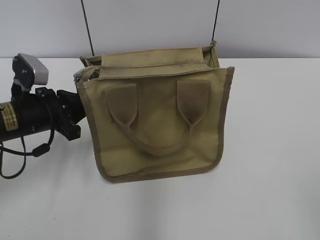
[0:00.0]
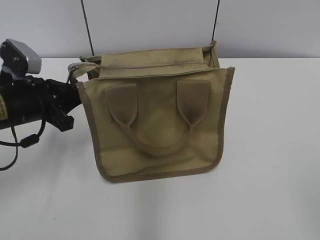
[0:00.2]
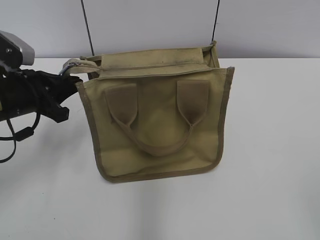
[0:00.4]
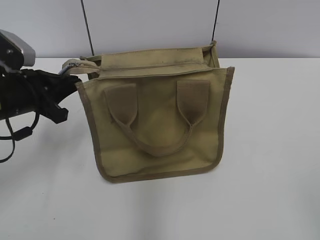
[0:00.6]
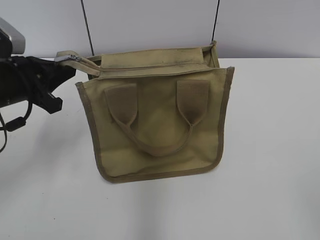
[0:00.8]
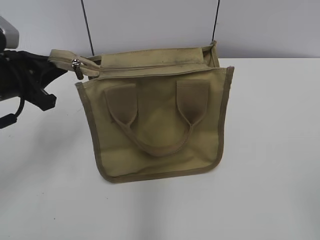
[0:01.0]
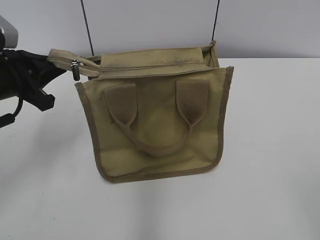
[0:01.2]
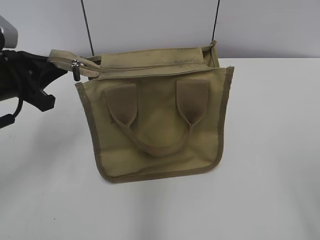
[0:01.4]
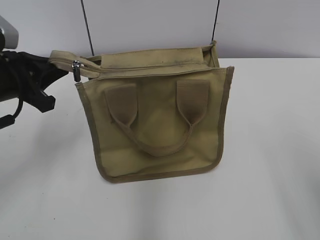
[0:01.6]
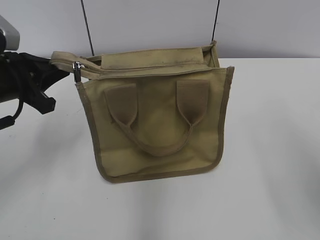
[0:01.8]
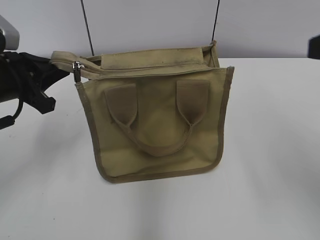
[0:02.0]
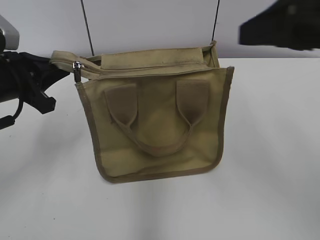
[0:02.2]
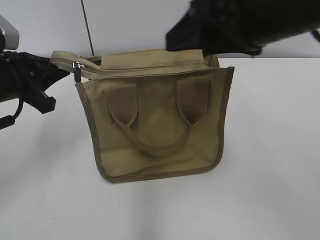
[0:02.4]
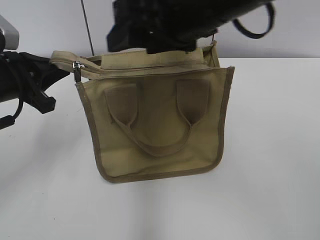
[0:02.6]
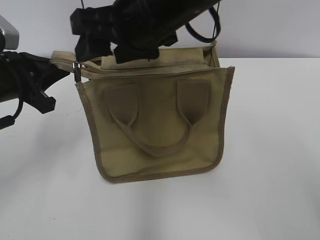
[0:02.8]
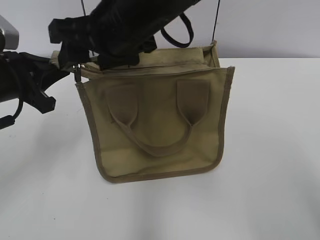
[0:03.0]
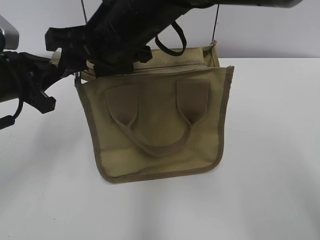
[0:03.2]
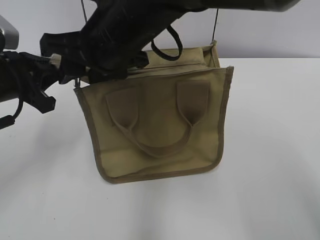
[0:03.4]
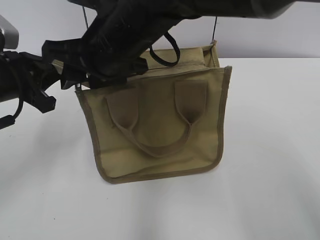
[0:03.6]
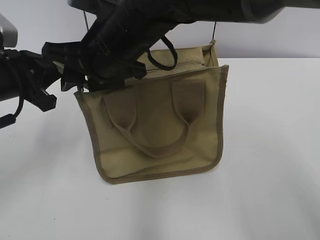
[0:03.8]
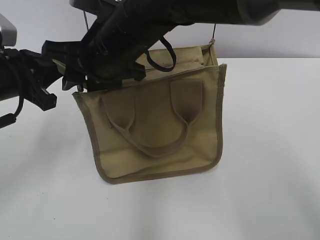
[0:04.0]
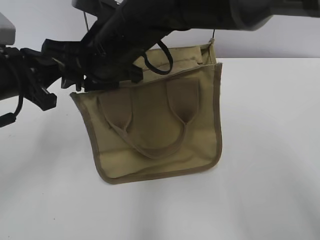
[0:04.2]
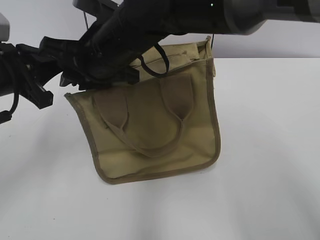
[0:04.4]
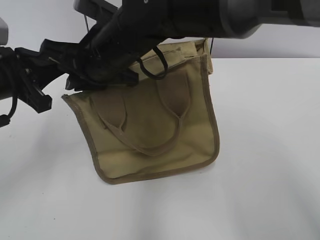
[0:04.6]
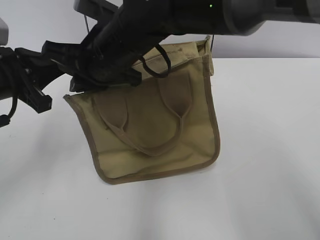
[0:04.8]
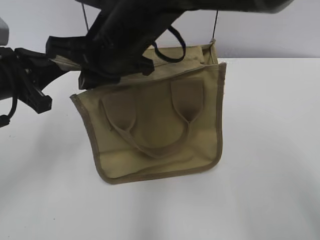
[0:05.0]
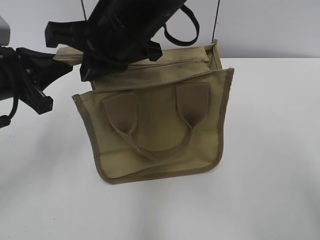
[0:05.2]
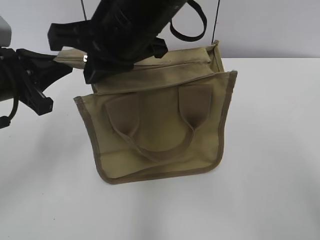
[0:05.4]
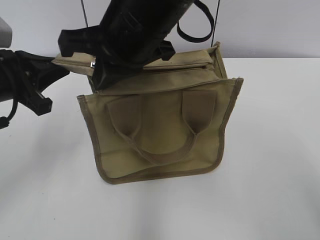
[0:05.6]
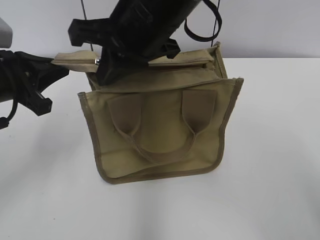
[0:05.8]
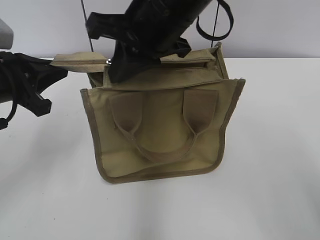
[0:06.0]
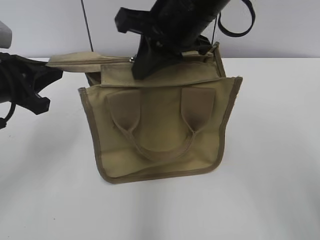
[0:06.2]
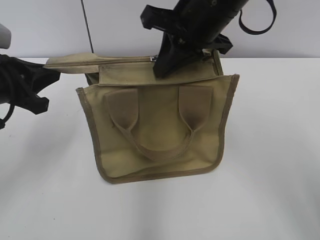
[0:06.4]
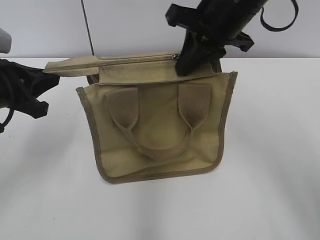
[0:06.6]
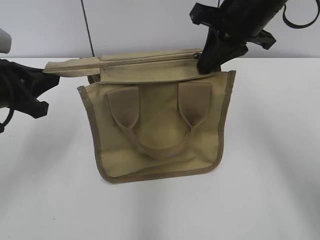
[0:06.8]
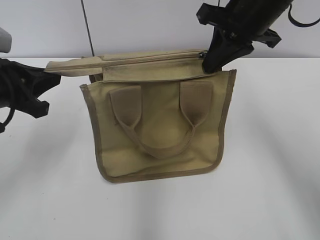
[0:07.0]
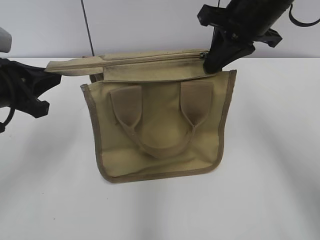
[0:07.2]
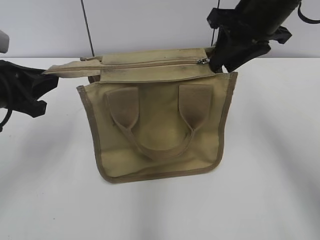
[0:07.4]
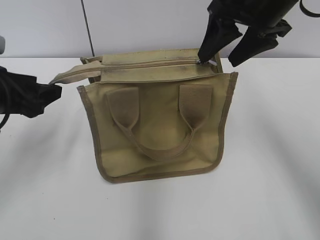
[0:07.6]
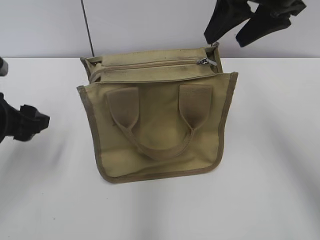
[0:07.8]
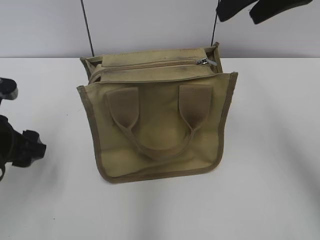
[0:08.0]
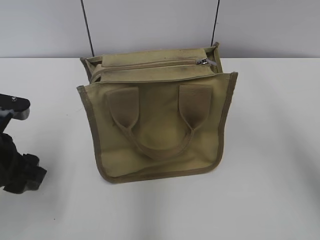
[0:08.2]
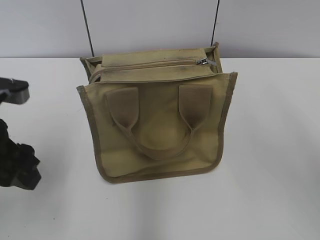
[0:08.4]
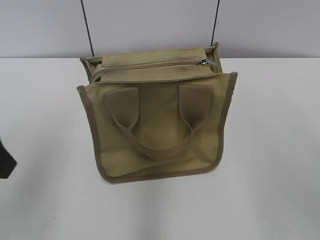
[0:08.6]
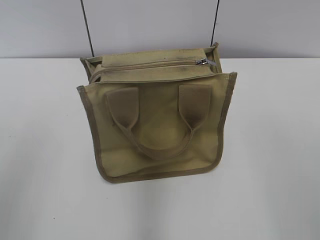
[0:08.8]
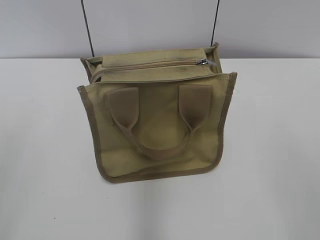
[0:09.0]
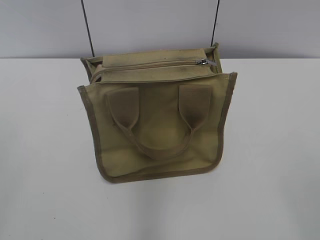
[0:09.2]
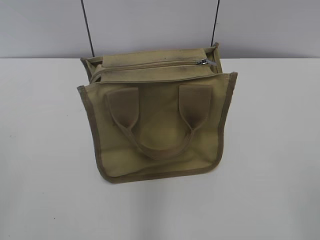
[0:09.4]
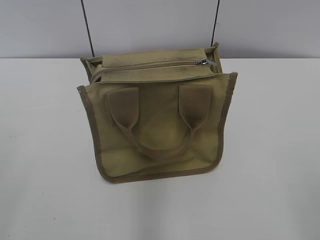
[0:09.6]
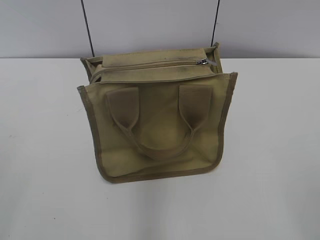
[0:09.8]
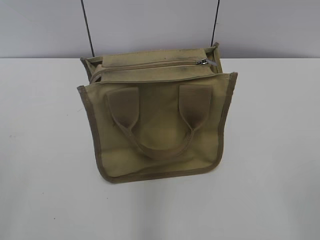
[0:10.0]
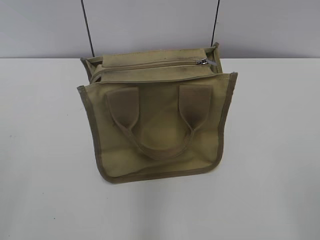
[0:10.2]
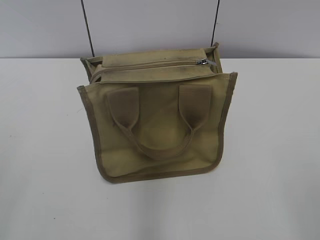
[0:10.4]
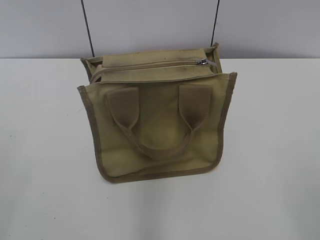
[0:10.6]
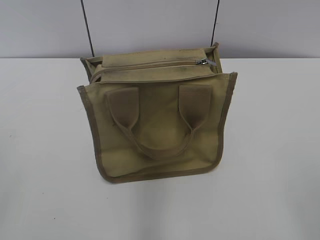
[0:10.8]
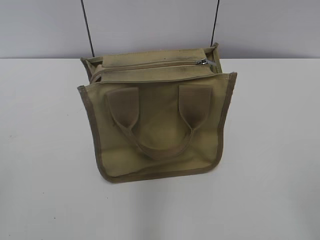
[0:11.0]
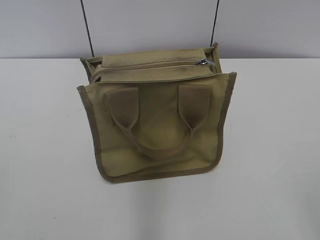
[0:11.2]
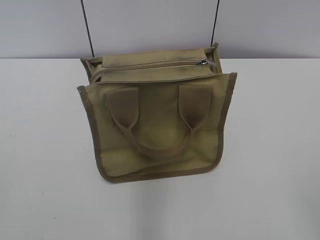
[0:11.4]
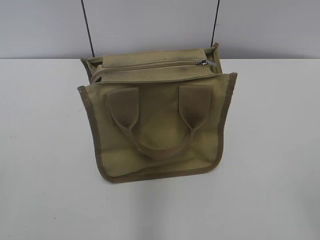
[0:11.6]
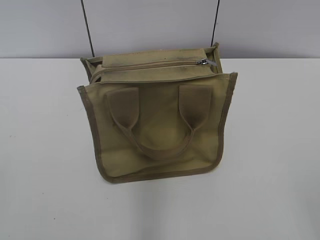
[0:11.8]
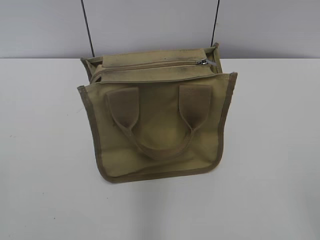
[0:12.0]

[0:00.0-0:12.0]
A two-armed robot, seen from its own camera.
Step, 0:00.0 to 0:07.4: Zip up the bag with your right hand.
0:00.0 to 0:01.6: The left gripper travels upward by roughly 10 cm.
0:01.6 to 0:03.0: The right gripper moves to the left and forward, some 35 cm.
0:03.0 to 0:04.4: The right gripper moves approximately 5 cm, and closes up.
0:04.4 to 0:06.0: The right gripper heads to the right and upward, covering roughly 10 cm, and closes up.
0:06.0 to 0:07.6: The right gripper travels to the right by roughly 15 cm, and opens up. The left gripper opens its fingers.
0:07.6 to 0:09.0: The right gripper moves backward, some 30 cm, while the left gripper moves backward and upward, about 25 cm.

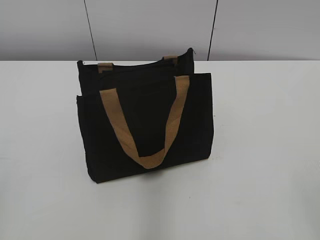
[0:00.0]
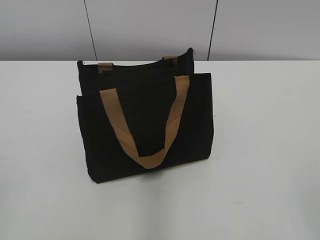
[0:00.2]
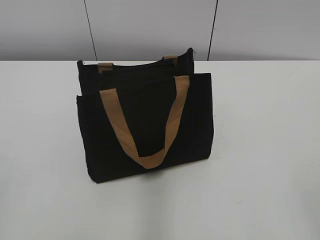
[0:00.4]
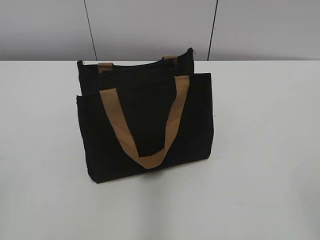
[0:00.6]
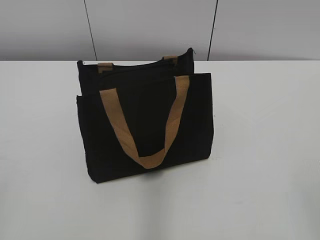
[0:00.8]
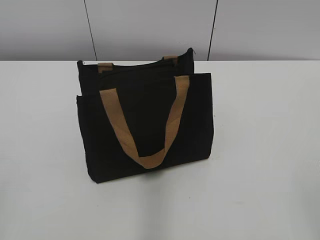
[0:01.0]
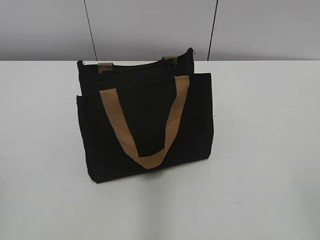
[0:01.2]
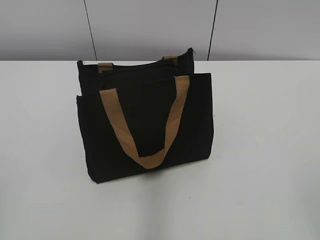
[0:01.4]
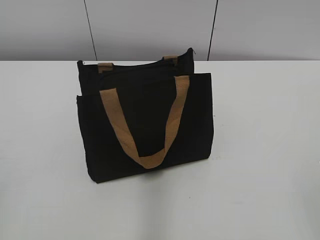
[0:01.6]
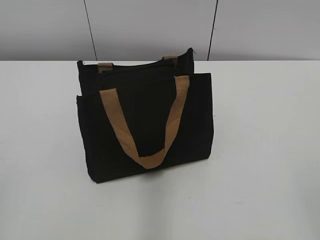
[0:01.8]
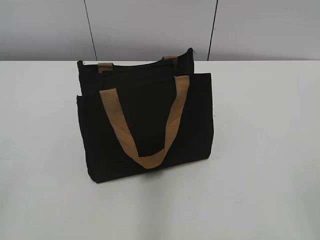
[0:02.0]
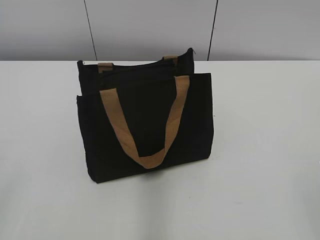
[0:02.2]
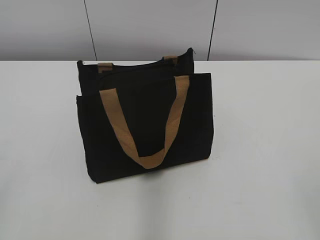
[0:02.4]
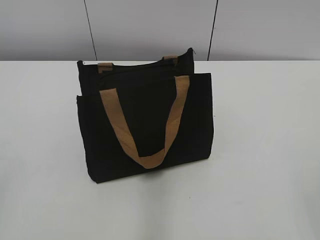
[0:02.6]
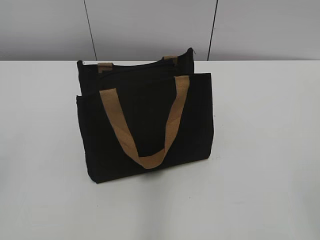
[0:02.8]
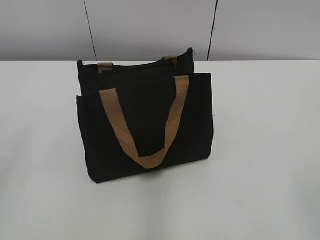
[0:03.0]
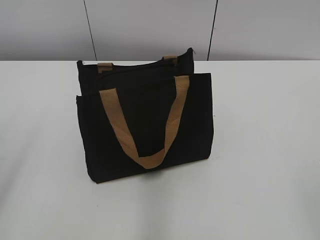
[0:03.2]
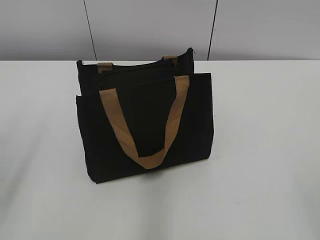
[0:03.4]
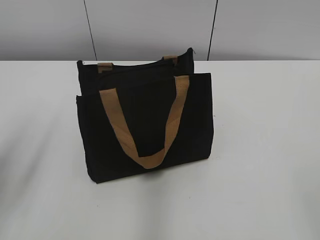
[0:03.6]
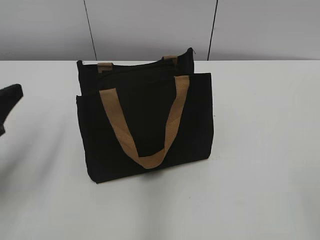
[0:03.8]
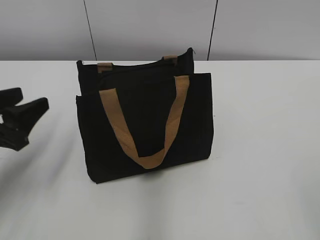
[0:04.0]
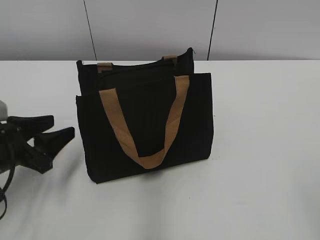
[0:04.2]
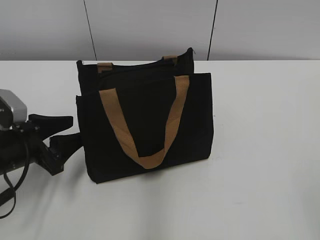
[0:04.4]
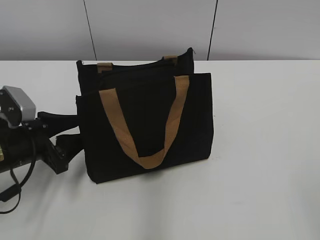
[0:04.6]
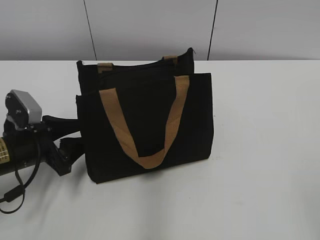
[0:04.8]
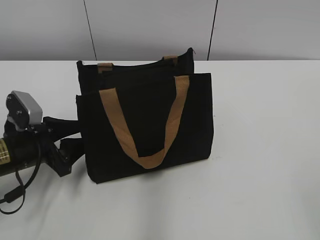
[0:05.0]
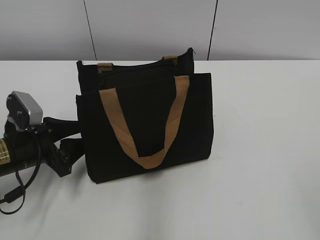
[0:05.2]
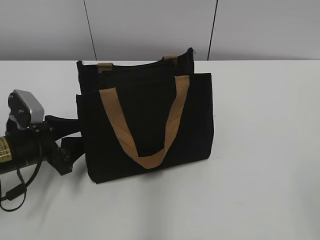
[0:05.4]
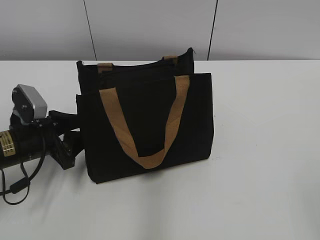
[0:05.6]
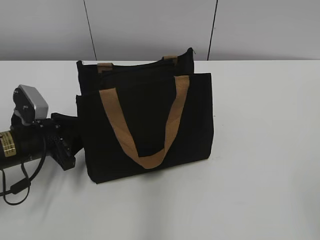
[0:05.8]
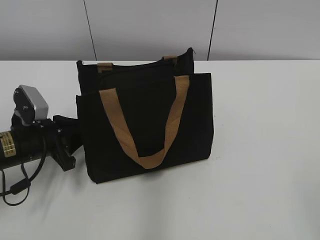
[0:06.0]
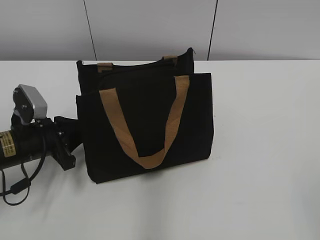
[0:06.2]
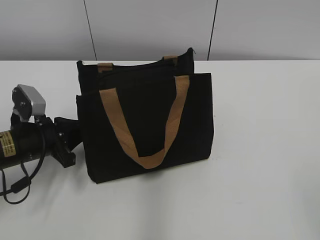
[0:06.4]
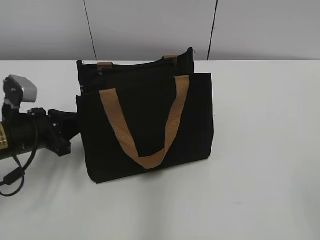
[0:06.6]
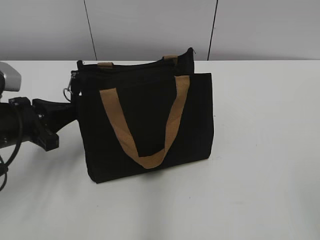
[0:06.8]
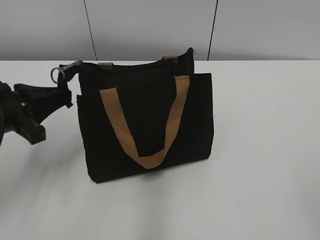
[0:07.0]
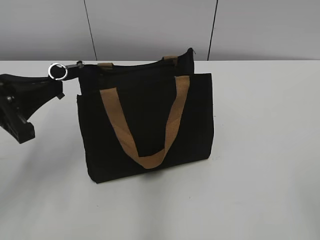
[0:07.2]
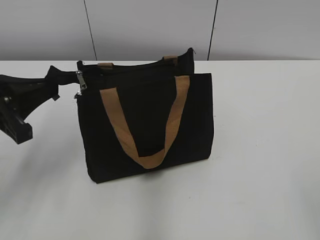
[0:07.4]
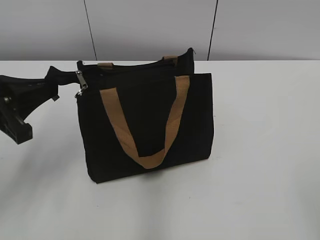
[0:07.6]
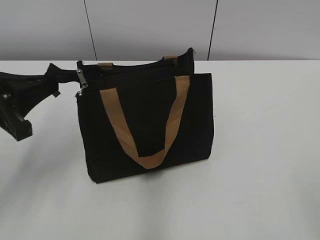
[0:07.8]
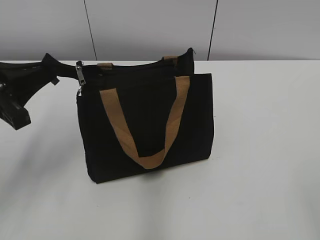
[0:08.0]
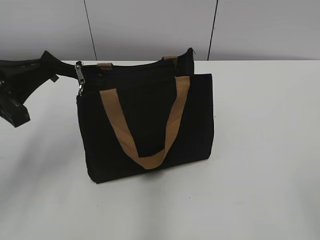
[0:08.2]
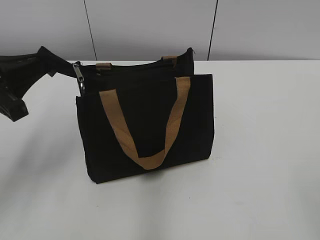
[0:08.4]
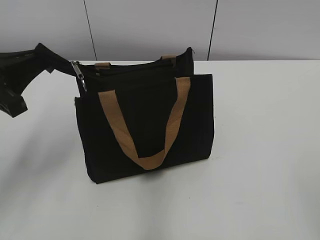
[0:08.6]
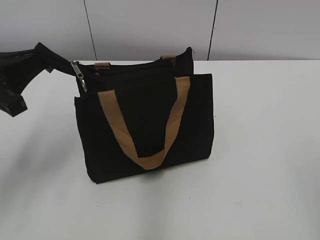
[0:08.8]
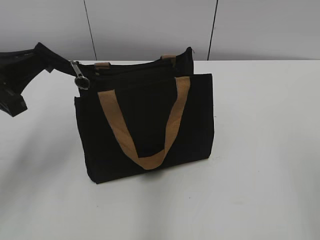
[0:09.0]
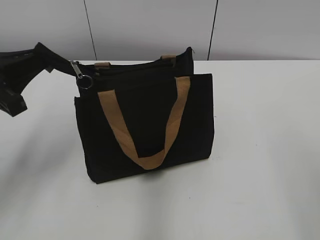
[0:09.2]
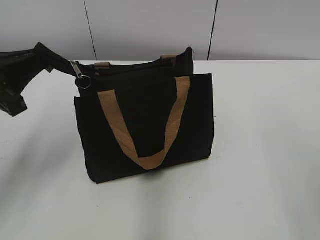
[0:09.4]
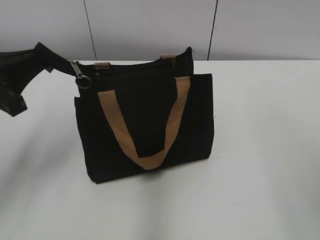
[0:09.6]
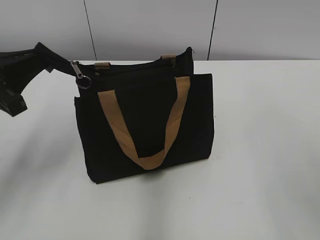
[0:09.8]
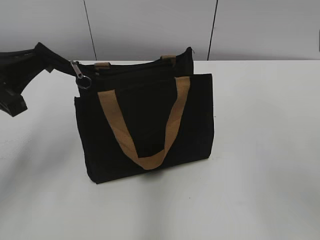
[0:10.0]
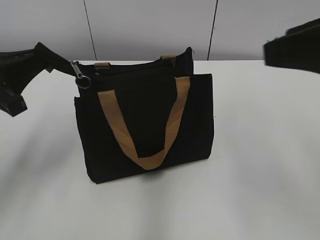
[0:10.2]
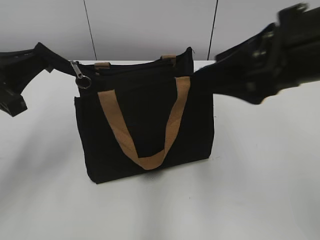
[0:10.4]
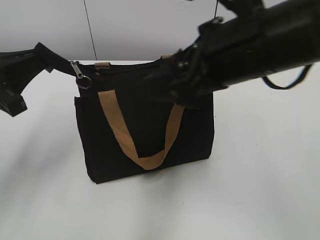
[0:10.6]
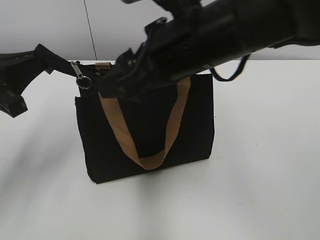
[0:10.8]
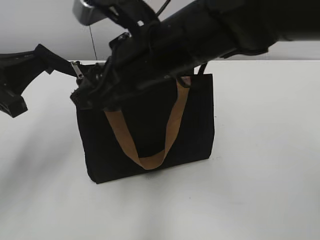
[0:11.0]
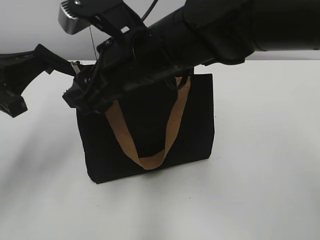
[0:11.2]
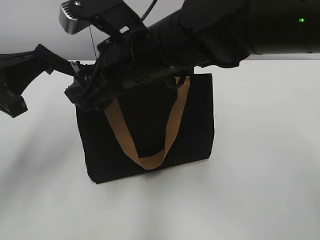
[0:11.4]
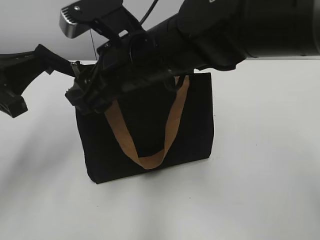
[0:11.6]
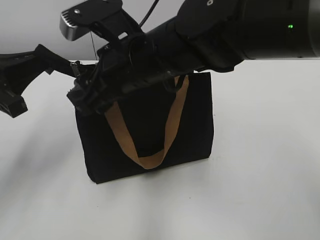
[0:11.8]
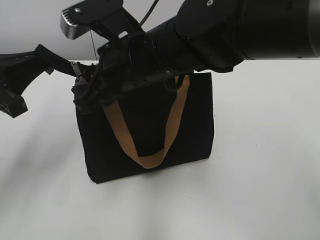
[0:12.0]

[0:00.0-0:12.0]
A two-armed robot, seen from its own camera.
0:03.0 to 0:04.4: The left gripper goes roughly 30 cm downward and forward.
0:04.4 to 0:06.0: The left gripper closes.
0:06.0 to 0:07.6: The left gripper is displaced upward and backward by some 15 cm, and closes its fingers.
0:07.6 to 0:09.0: The right gripper travels forward by some 5 cm.
0:09.0 to 0:10.4: The right gripper shifts about 20 cm forward and to the left.
0:10.4 to 0:12.0: The right gripper heads to the left, forward and downward, covering some 20 cm, and closes up.
